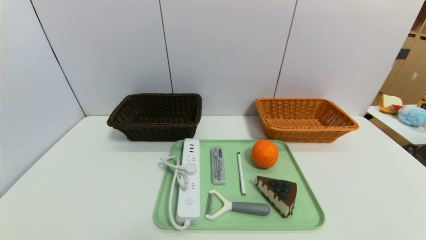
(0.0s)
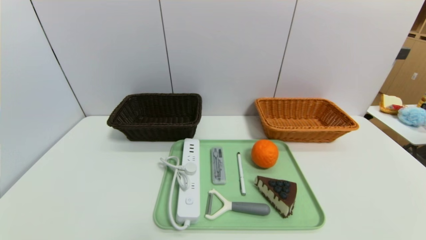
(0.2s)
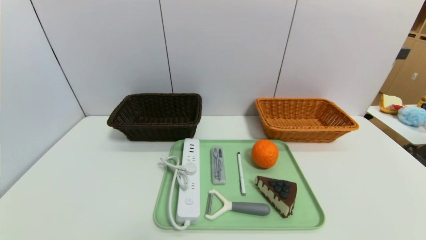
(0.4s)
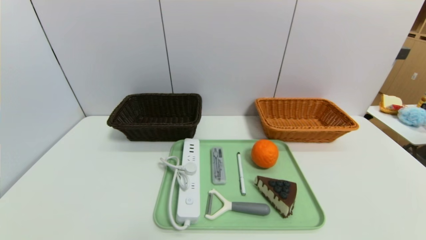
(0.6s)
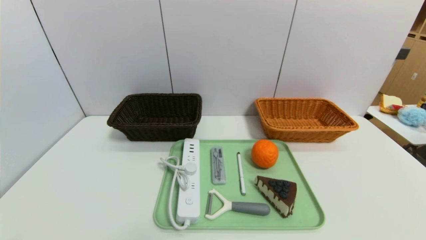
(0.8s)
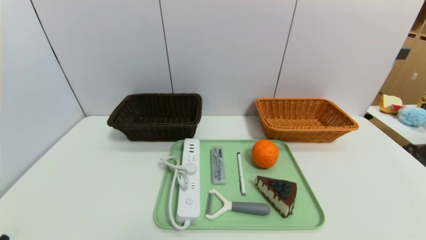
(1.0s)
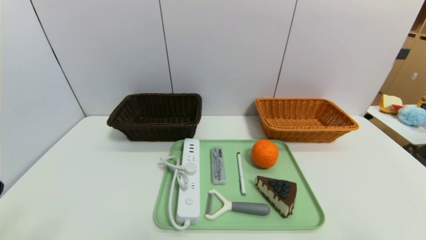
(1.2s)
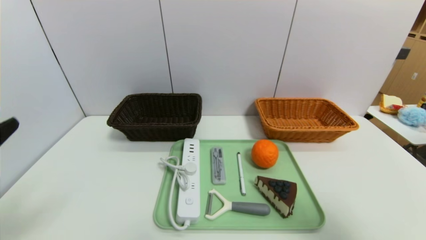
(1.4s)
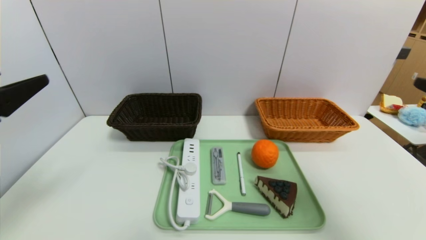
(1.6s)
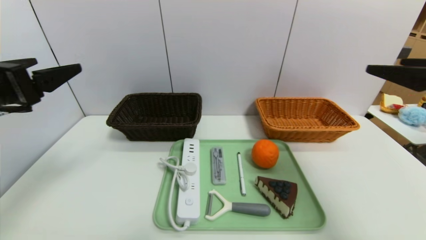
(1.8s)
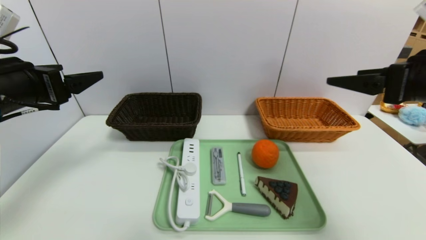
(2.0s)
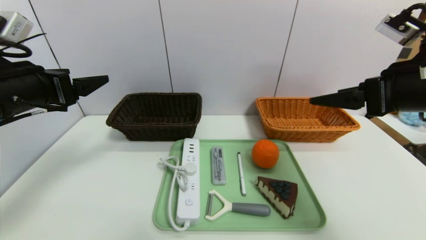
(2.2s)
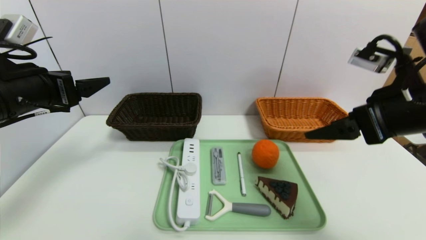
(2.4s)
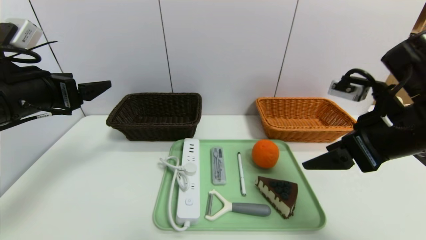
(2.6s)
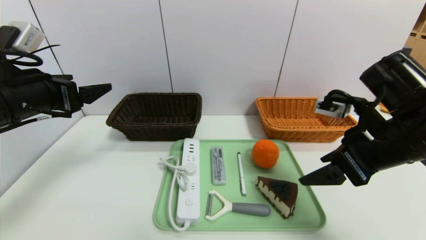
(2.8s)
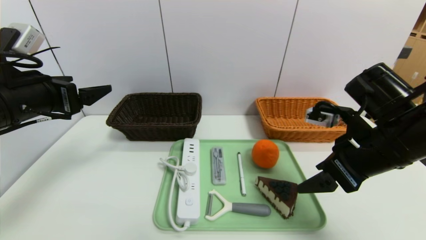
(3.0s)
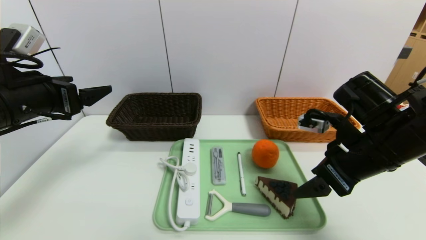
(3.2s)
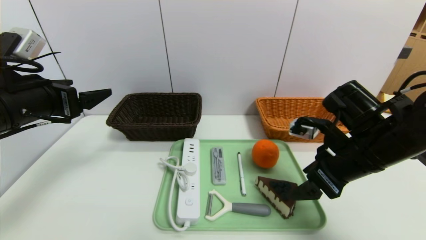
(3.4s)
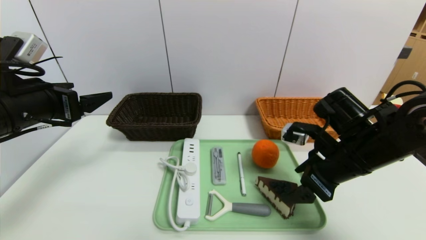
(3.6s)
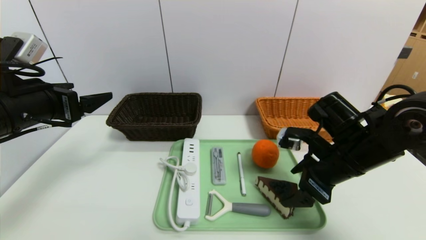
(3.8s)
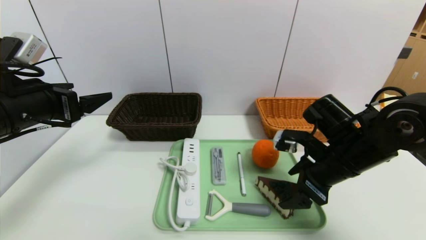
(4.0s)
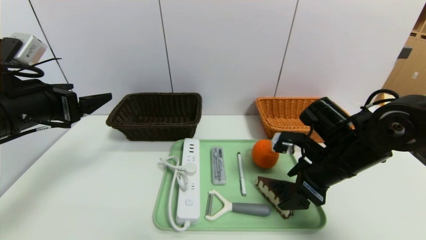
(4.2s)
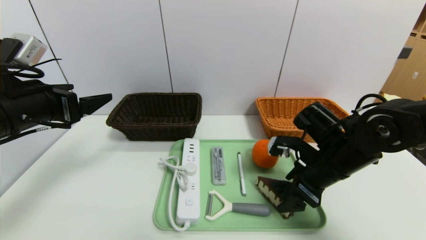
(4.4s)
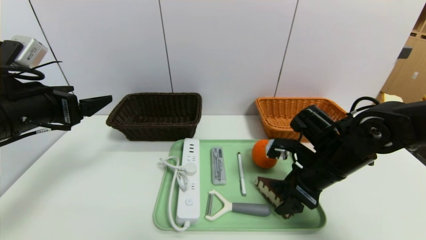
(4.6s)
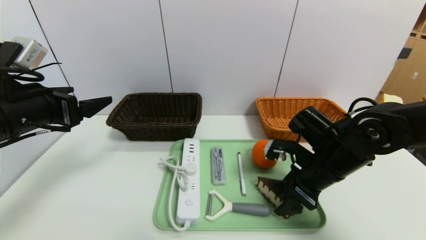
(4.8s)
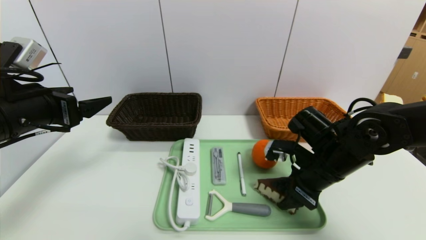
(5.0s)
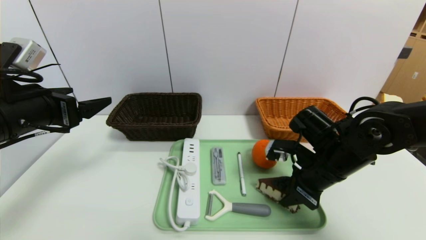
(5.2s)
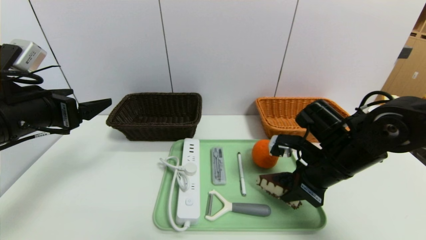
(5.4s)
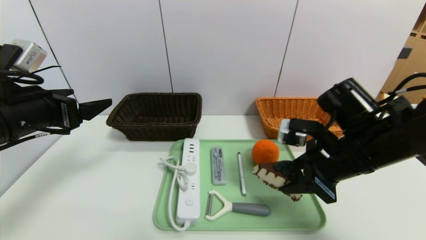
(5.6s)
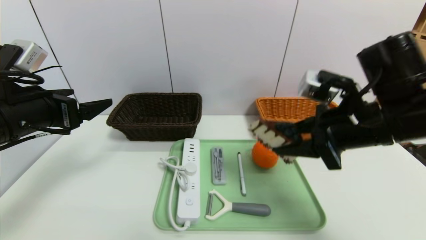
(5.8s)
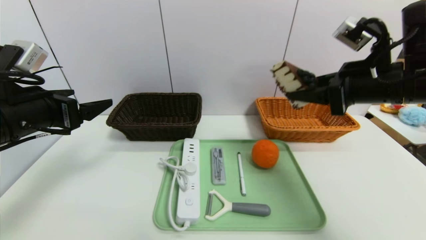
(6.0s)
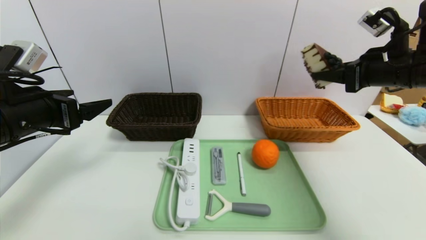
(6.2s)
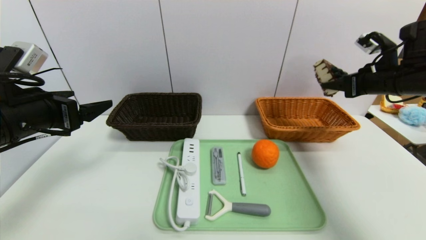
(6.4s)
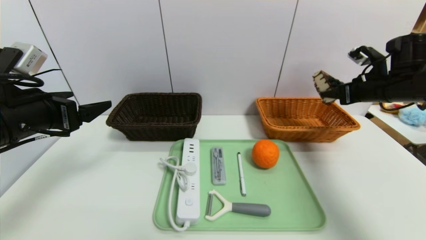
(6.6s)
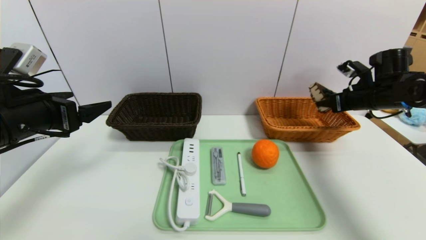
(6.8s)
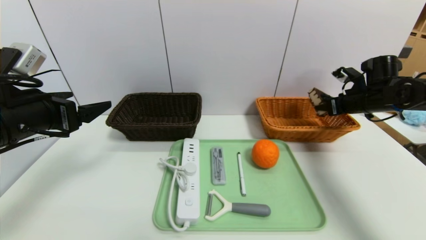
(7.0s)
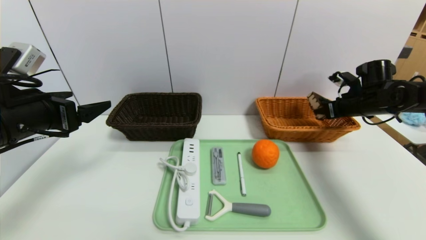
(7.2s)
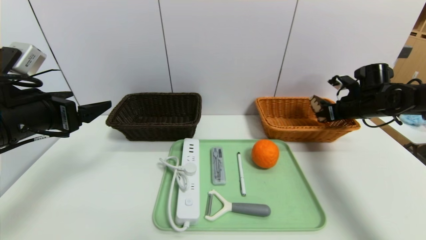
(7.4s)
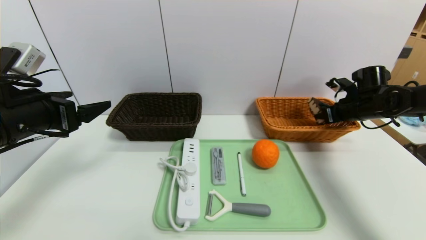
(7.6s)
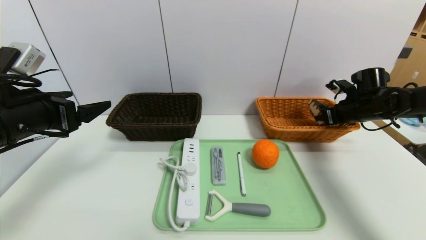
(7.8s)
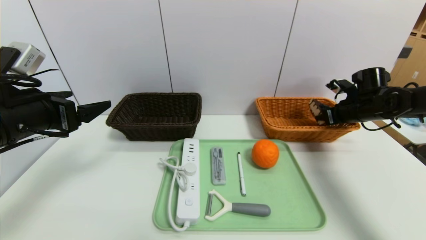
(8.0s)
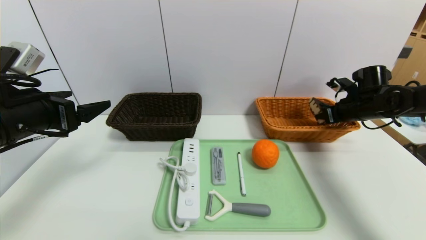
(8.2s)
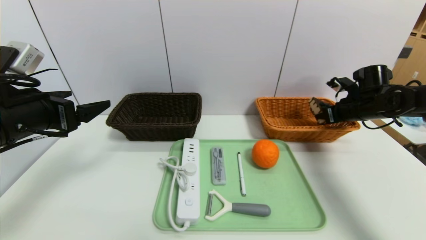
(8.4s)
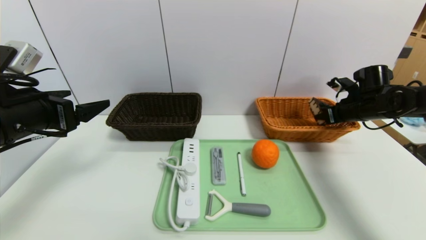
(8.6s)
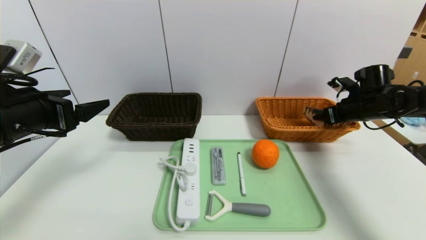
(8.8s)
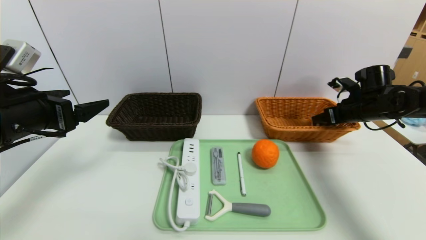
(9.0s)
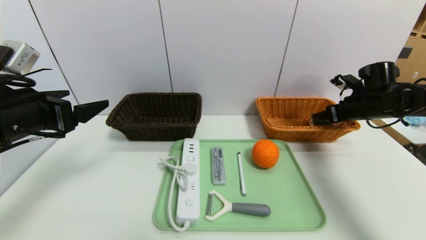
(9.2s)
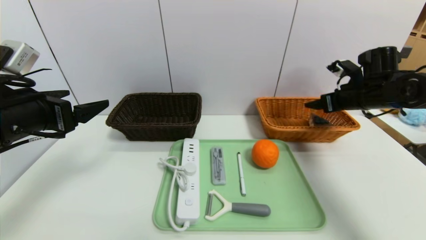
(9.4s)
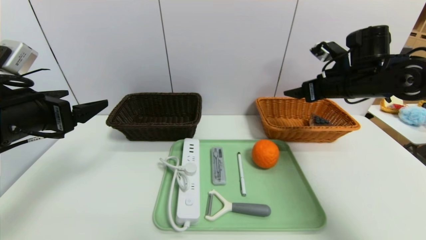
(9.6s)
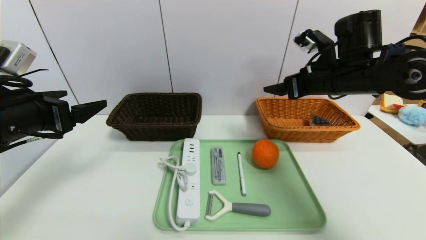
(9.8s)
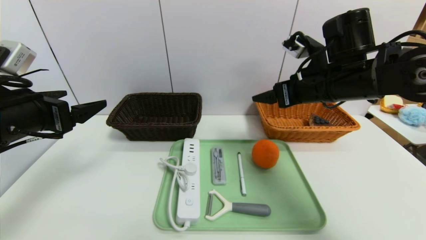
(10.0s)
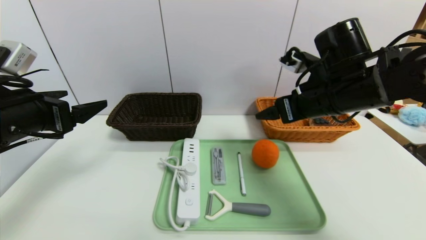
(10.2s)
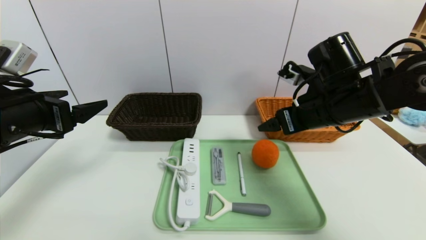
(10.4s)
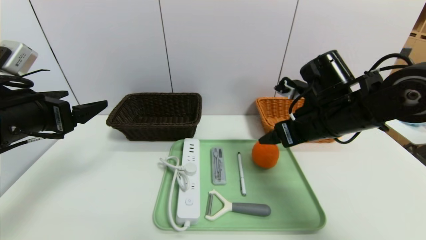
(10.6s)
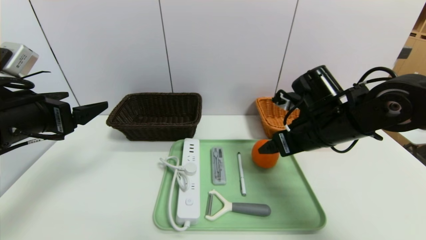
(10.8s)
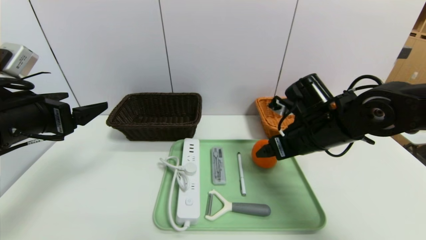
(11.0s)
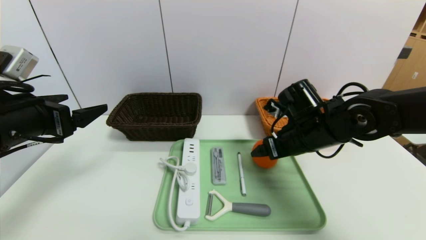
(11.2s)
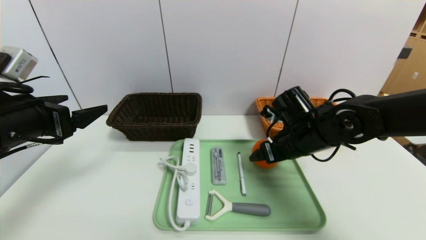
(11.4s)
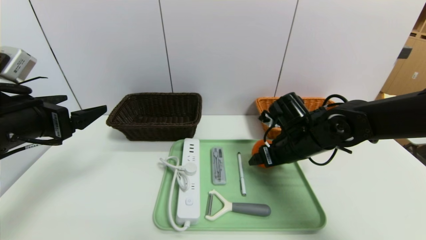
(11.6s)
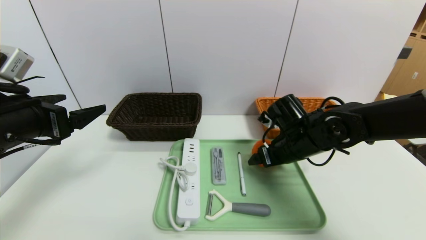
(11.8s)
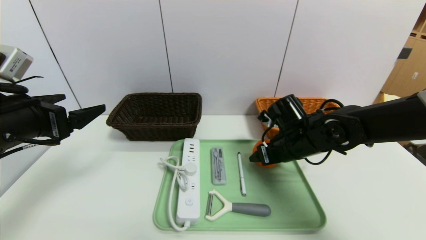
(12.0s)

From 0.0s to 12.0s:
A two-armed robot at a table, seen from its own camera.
Task of the whole recording: place the food in the right basket with the right gripper, and place the non food items in the left basket with the left gripper.
Step, from 0.0s to 9.6s: Grasp the triangle cake and put it in the right basket.
From 0.0s to 1.6s: The grippers both shift upward and forward by roughly 25 cm.
From 1.6s to 3.0s: The left gripper travels forward by roughly 10 cm; the right gripper shifts some 15 cm forward, to the left and downward.
From 3.0s to 4.4s: The right gripper travels downward by roughly 10 cm.
From 4.4s to 6.0s: The right gripper goes some 15 cm upward and to the right, and closes.
From 6.0s to 7.6s: The right gripper shifts some 25 cm forward, downward and to the right.
From 7.6s to 9.0s: The right gripper opens.
From 9.0s to 10.4s: The right gripper moves to the left and backward, roughly 20 cm.
From 10.4s to 12.0s: The right gripper shifts roughly 10 cm downward.

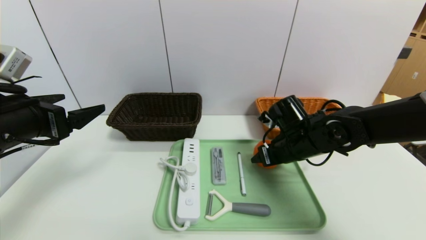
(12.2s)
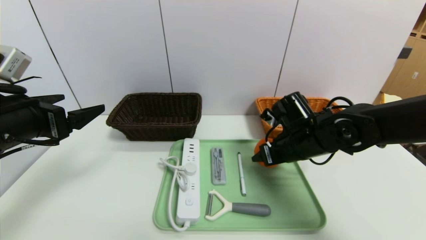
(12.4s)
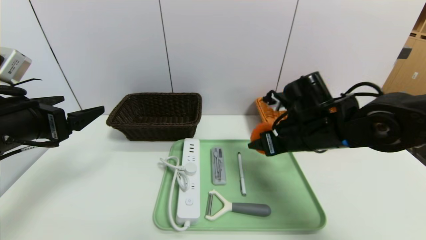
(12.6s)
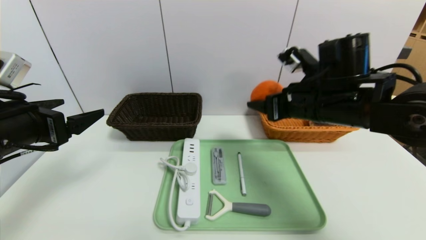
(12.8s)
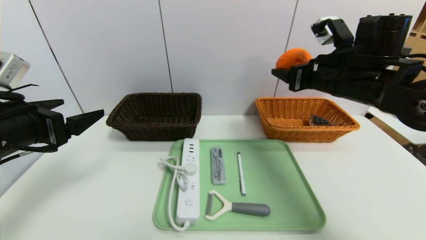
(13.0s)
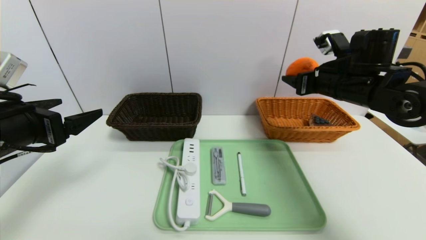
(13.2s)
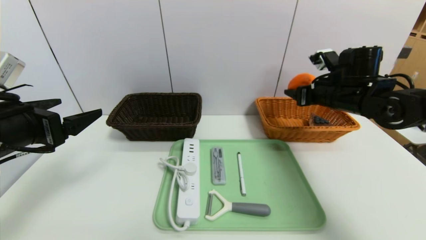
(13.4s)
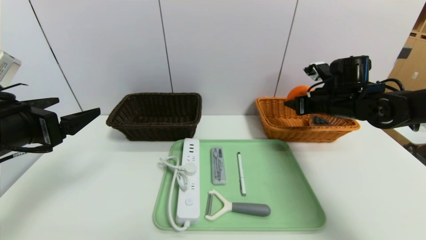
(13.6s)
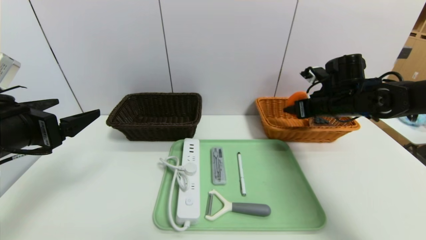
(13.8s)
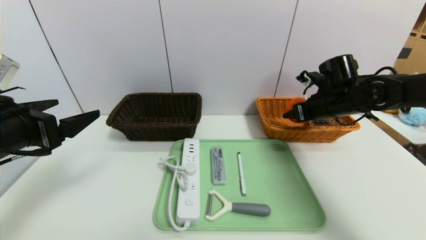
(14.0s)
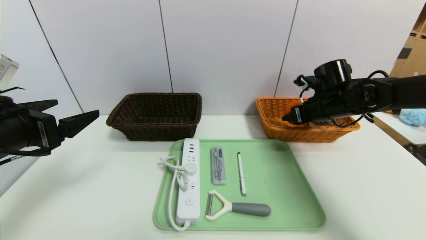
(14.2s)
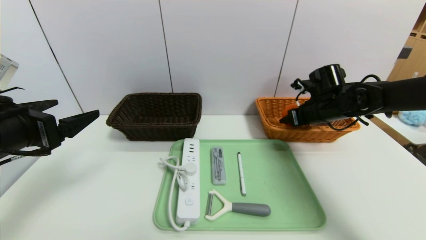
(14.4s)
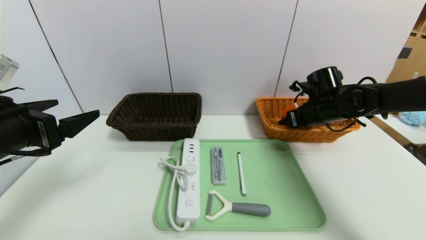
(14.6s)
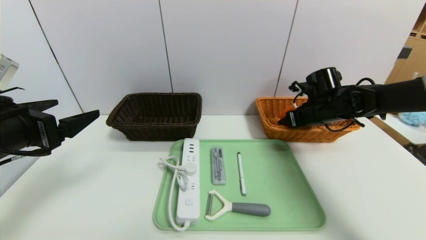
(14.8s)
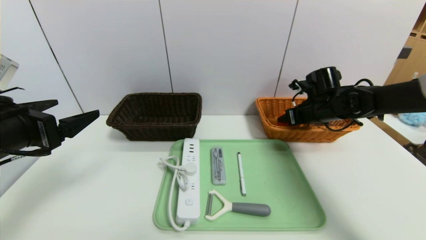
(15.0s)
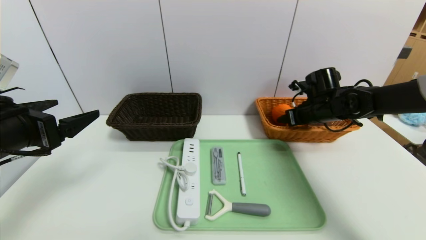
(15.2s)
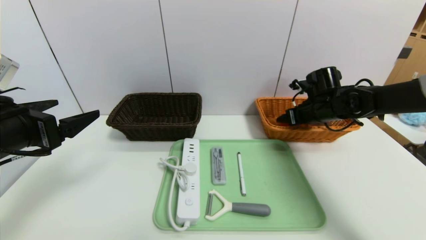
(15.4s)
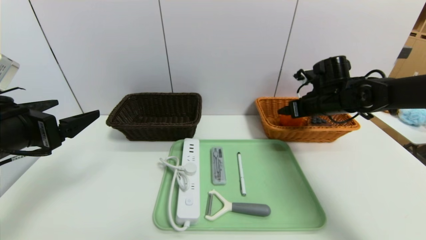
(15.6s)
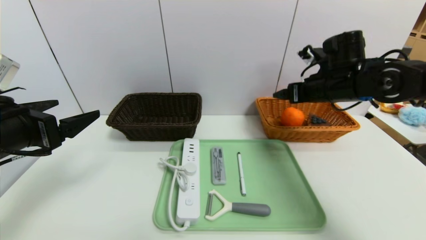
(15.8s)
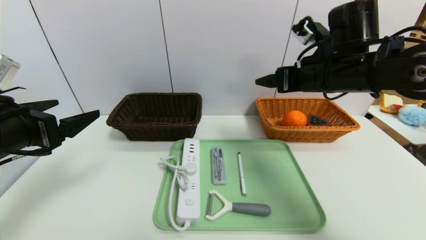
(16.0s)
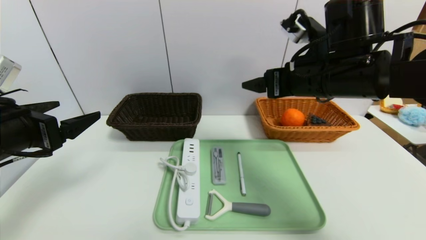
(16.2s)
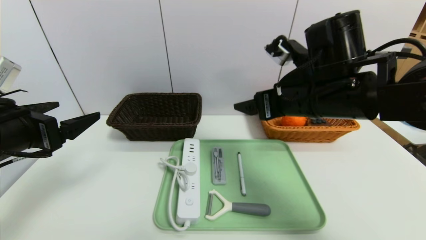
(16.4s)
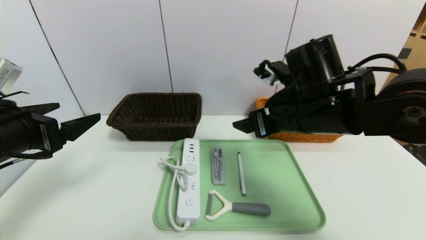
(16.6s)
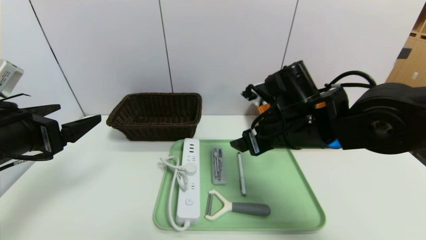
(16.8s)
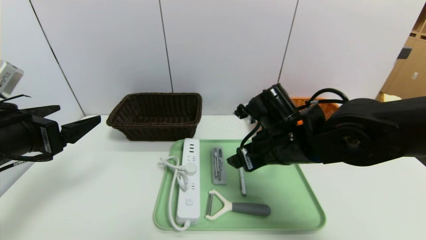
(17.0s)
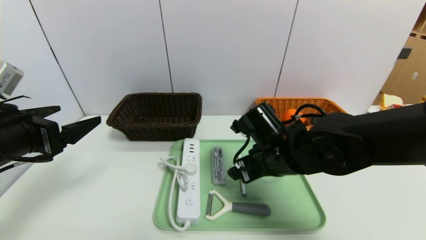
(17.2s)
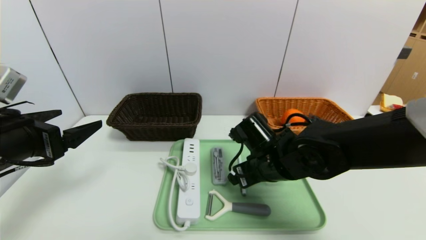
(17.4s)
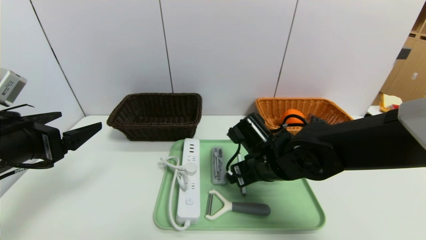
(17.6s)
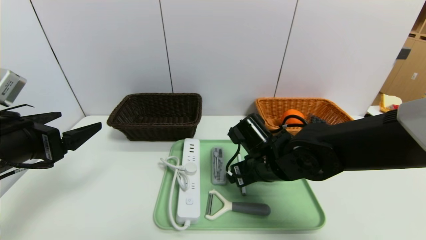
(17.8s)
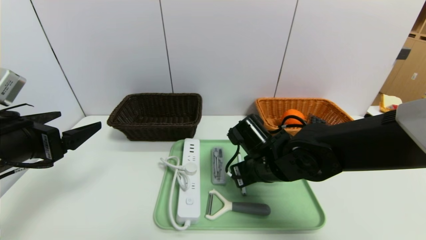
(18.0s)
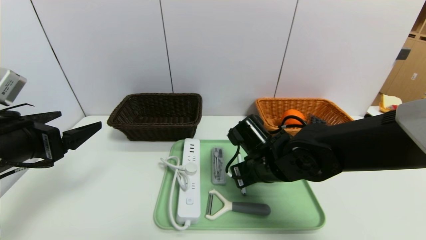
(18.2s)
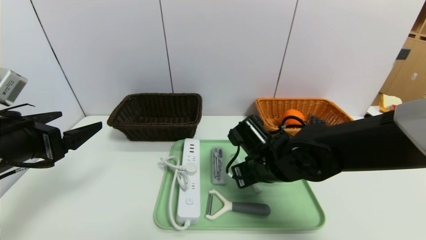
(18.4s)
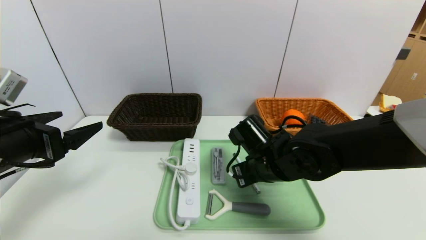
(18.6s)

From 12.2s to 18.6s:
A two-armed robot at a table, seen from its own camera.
Task of the whole recording: place the food in the right basket with the right gripper, and place the non food items in the left basket with the left gripper.
Step, from 12.2s to 15.8s: Grasp the orange and put it in the right basket.
From 12.2s to 13.8s: The right gripper is displaced to the right, upward and forward by roughly 15 cm.
From 13.8s to 15.4s: The grippers make only small movements.
From 15.4s to 17.0s: The right gripper travels to the left and backward by some 20 cm.
From 17.0s to 18.6s: The right gripper shifts roughly 5 cm downward, and closes.
